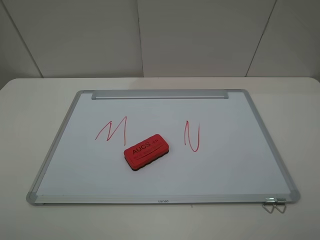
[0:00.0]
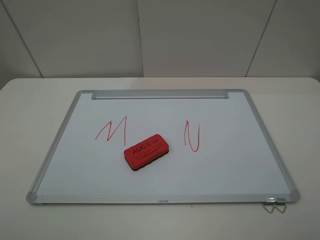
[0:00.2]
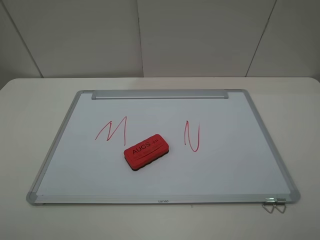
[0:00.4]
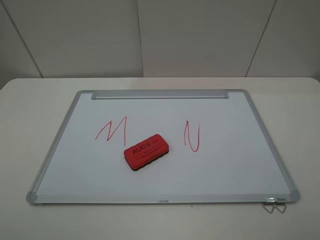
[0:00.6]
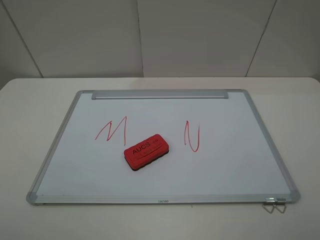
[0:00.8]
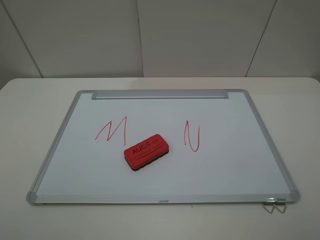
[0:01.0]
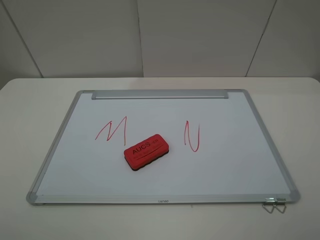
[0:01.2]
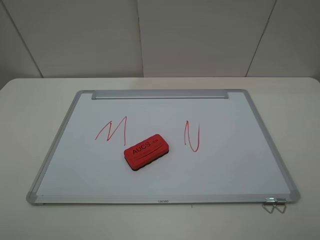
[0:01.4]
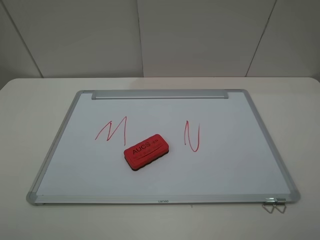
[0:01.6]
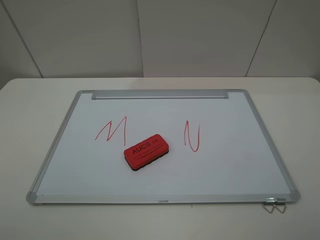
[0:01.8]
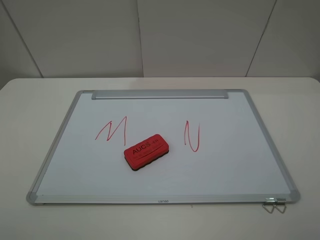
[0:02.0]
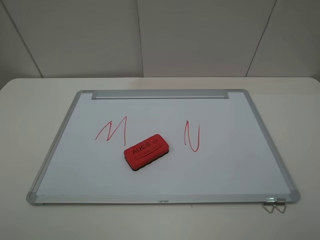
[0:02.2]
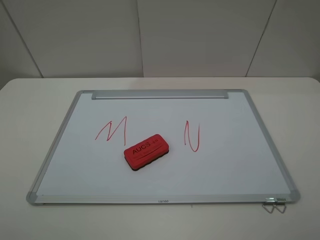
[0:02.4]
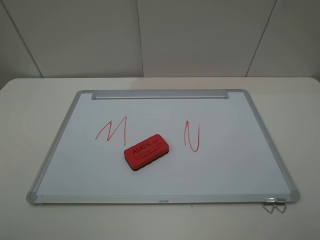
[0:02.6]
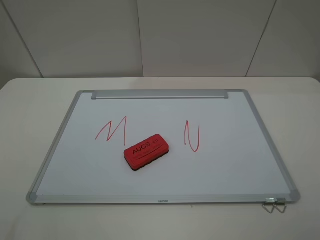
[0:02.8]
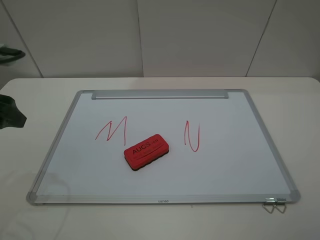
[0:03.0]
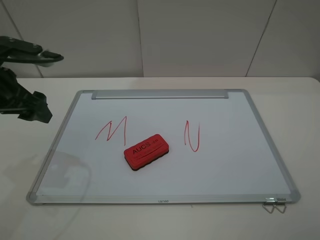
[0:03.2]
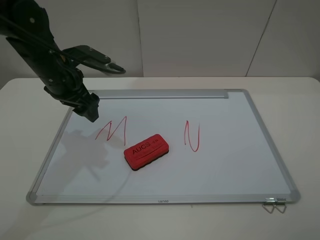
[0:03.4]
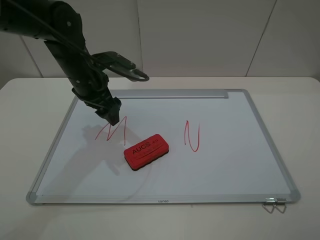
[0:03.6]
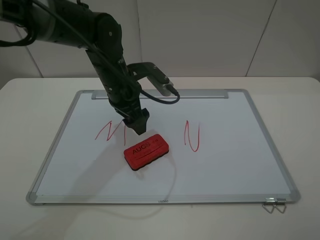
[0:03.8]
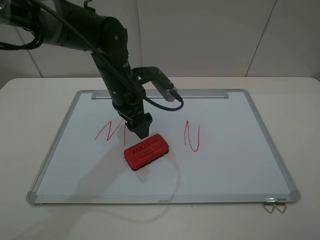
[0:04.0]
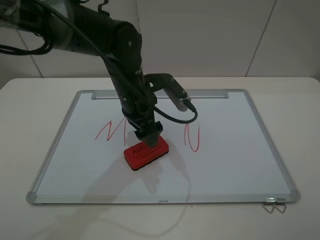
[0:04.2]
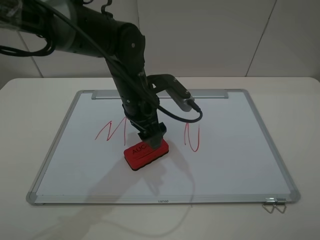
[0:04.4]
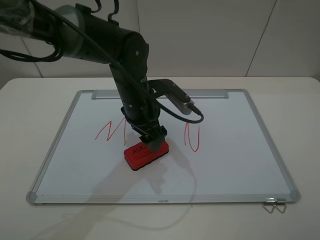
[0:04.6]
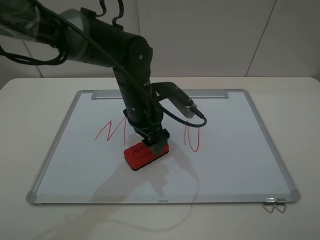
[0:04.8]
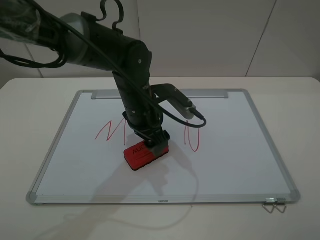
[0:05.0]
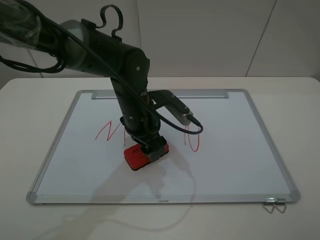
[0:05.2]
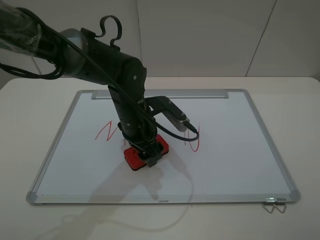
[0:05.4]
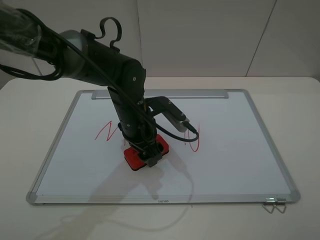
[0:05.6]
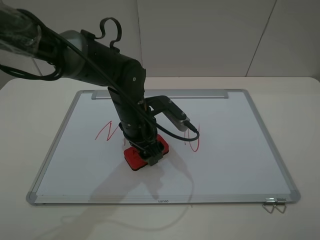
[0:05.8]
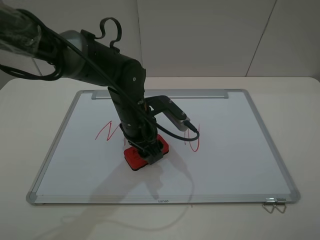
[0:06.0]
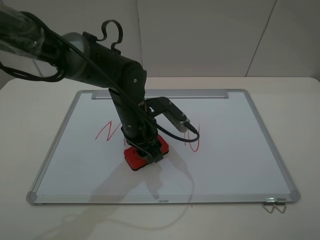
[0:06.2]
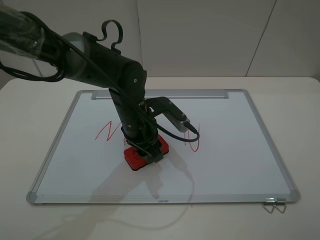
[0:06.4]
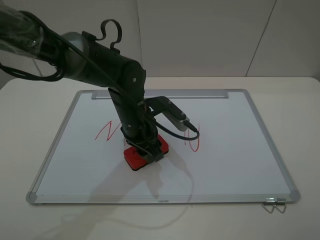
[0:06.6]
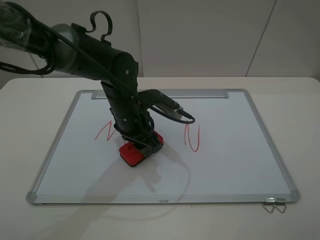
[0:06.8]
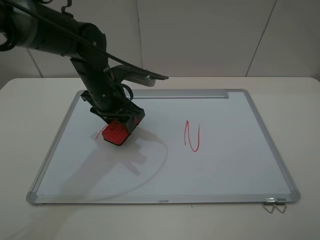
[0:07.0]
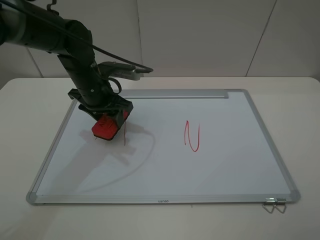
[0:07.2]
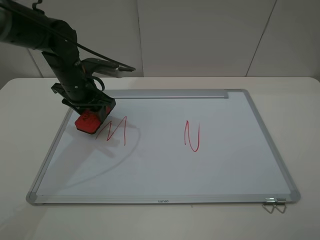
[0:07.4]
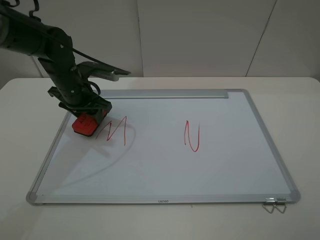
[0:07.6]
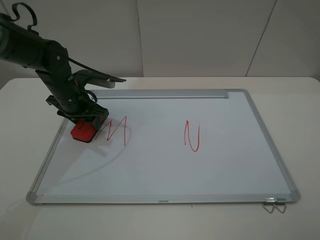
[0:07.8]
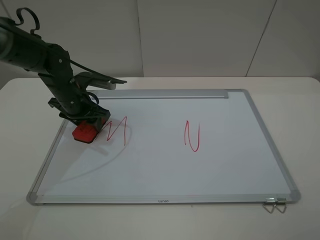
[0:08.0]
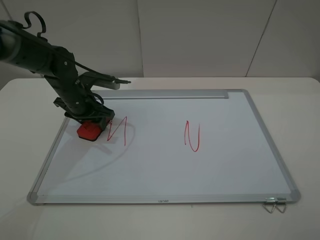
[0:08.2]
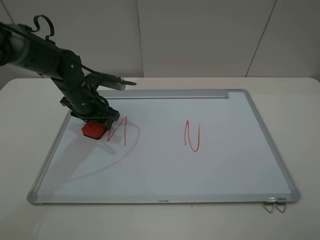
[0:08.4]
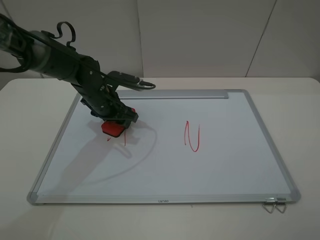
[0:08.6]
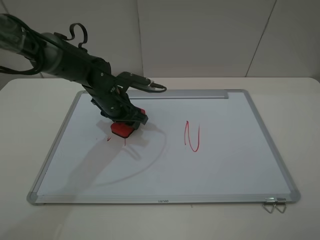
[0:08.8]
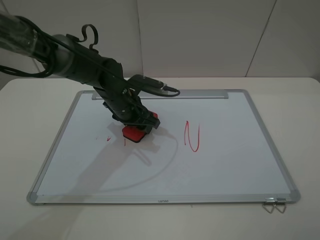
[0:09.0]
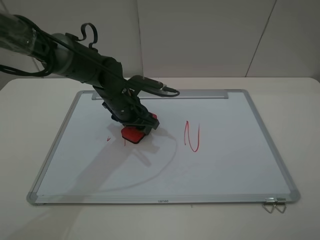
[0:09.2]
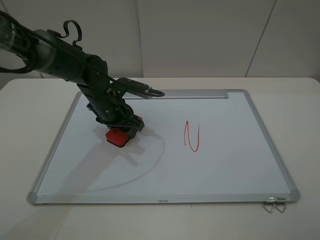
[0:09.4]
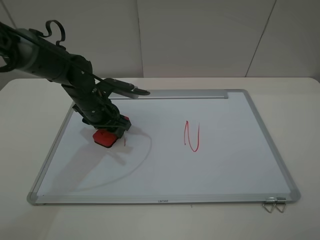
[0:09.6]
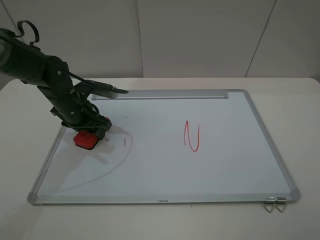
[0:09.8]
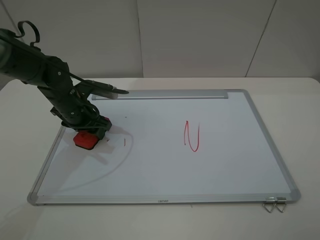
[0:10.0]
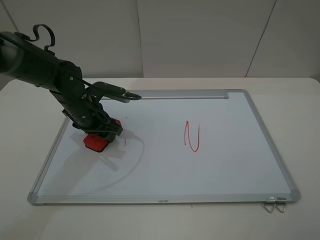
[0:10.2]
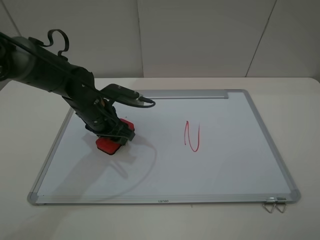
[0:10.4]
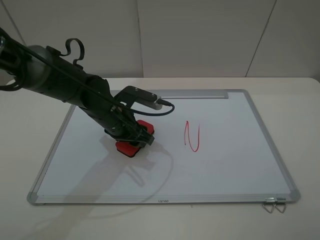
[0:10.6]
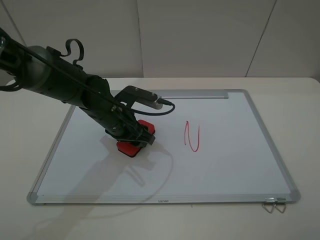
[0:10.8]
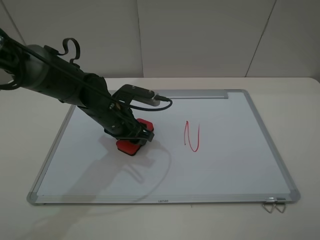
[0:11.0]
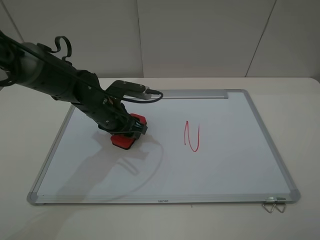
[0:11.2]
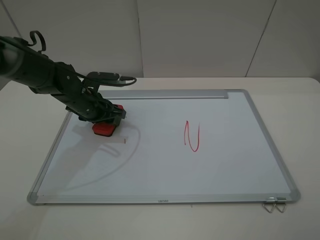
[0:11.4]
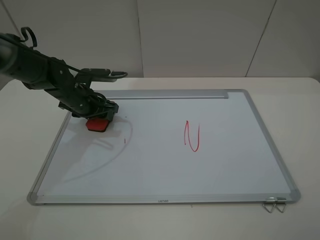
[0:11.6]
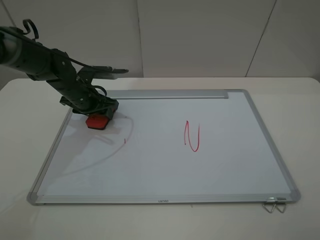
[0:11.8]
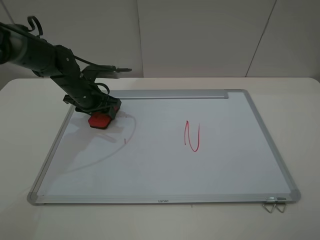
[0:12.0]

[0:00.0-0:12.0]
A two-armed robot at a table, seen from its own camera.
Step, 0:00.0 to 0:06.0: Grasp the eraser with the left gripper.
0:00.0 to 0:01.6: Both grippers stay put.
0:01.6 to 0:03.0: The left gripper is displaced forward by roughly 20 cm.
0:03.0 to 0:04.4: The left gripper travels to the right by some 25 cm.
0:04.4 to 0:06.0: The left gripper closes up.
0:06.0 to 0:07.6: The left gripper goes about 15 cm to the left and forward, and closes up.
0:07.6 to 0:09.0: The left gripper shifts some 10 cm to the right and downward.
0:10.4 to 0:12.0: The left gripper moves forward and to the left, roughly 10 cm.

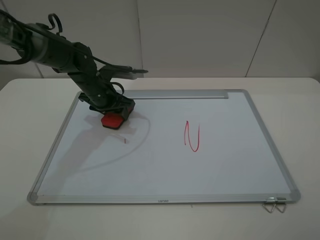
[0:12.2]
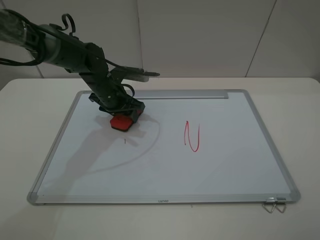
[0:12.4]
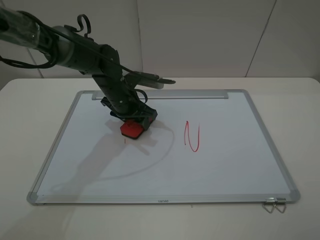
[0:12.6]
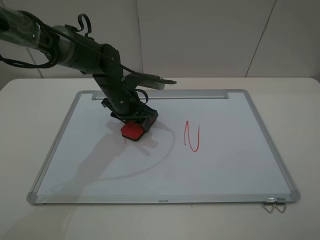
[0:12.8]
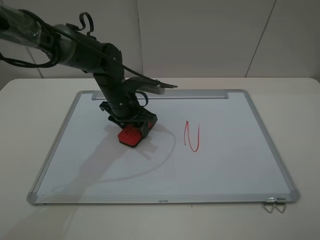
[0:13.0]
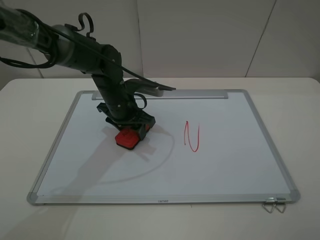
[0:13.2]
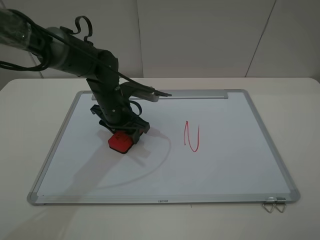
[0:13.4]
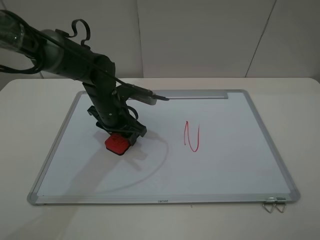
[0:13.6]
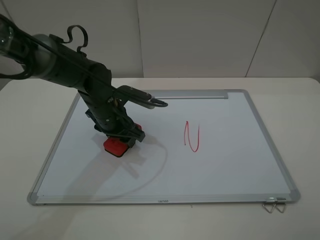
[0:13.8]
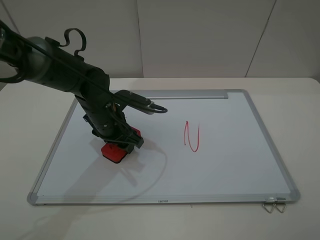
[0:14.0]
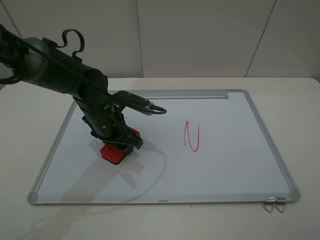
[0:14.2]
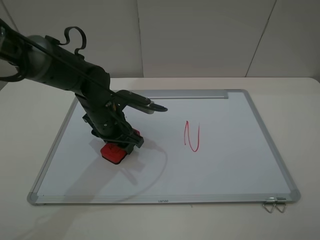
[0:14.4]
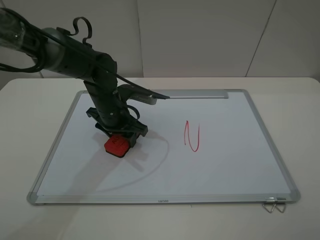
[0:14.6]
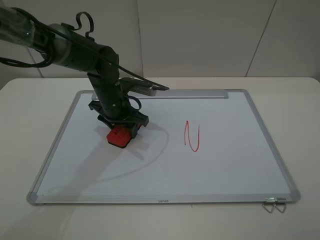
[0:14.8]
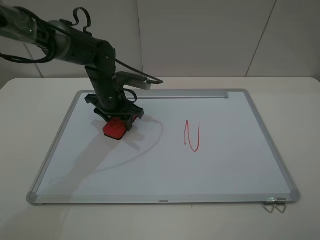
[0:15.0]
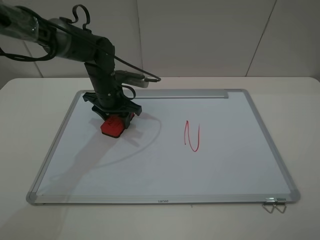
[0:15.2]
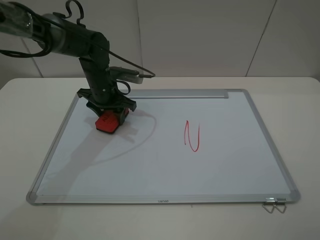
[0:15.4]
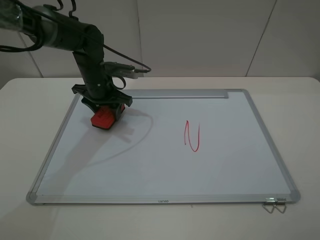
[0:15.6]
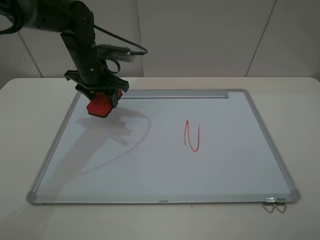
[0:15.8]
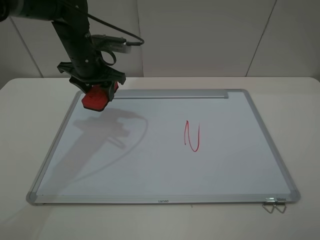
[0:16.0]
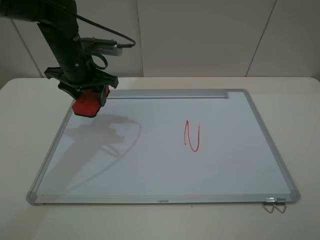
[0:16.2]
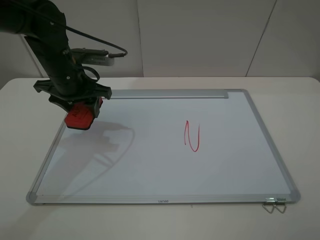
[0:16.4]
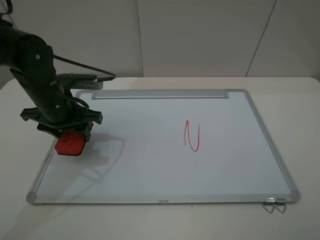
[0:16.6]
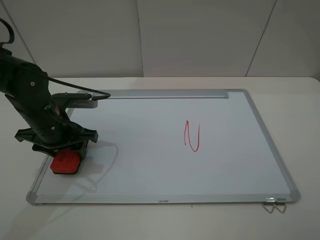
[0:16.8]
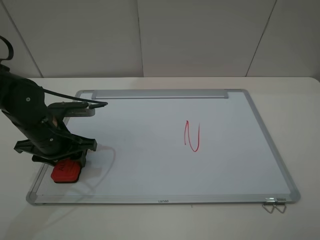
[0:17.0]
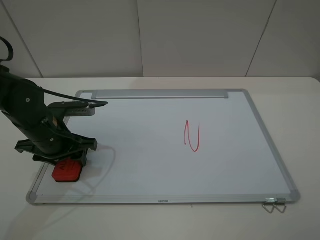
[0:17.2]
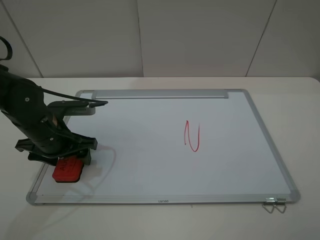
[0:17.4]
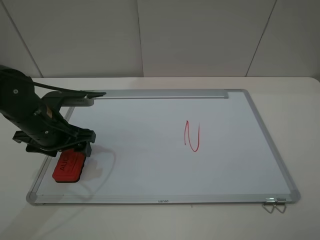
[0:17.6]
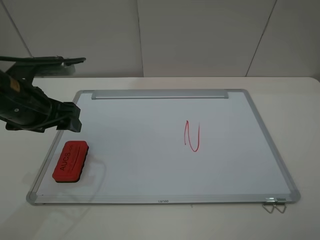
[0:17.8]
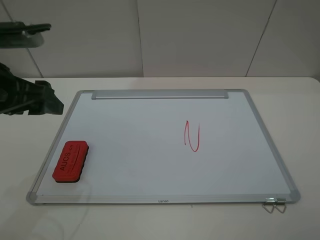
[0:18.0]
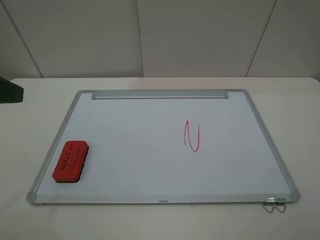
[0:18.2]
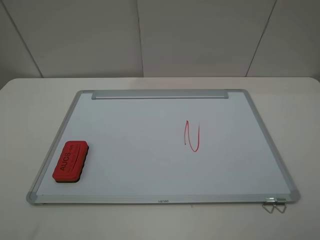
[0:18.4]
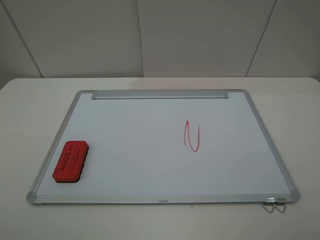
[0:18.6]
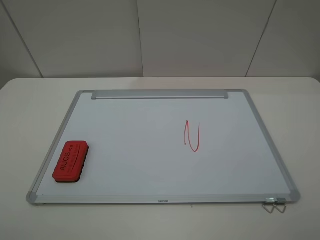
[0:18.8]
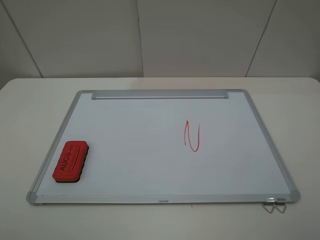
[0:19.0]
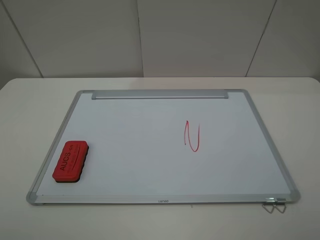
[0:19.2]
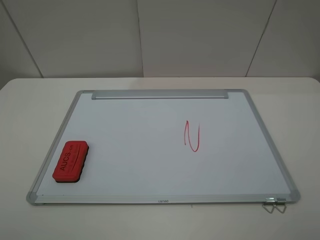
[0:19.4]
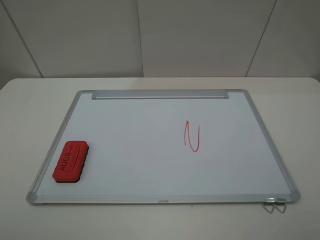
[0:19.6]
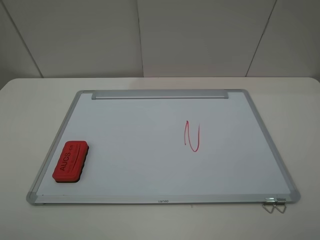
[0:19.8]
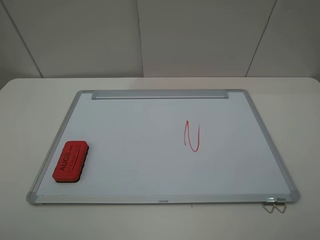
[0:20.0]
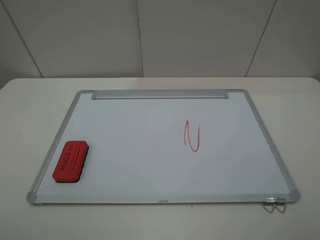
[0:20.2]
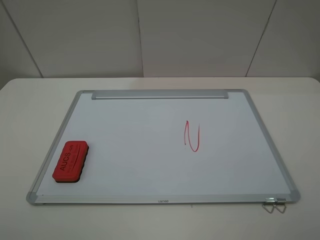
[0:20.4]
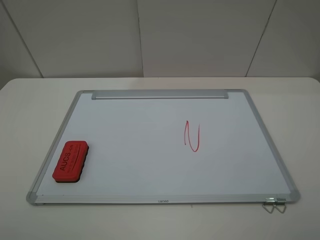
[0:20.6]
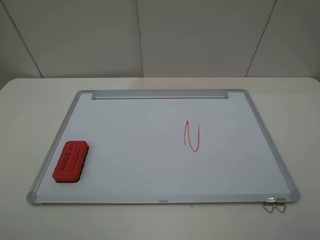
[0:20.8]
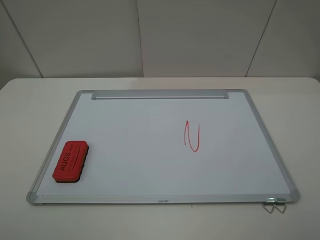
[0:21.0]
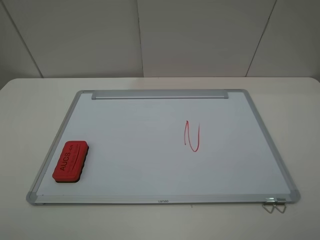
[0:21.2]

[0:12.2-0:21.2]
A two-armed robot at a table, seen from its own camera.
Step, 0:12.2 to 0:15.6: Grasp the eraser and wipe the blackboard with the left gripper.
Step, 0:15.8 to 0:17.6: Place the eraser with the left gripper.
0:12.2 to 0:13.8: The left gripper moves backward, some 10 cm.
0:13.8 to 0:15.2: The left gripper goes some 10 cm forward.
0:15.2 to 0:16.6: The left gripper shifts some 15 cm backward and to the left.
0:16.6 to 0:18.2: The left gripper shifts some 25 cm upward, backward and to the left, and opens.
0:18.2 to 0:19.8: The left gripper travels backward by about 15 cm.

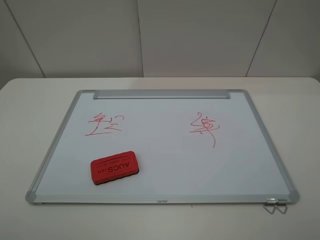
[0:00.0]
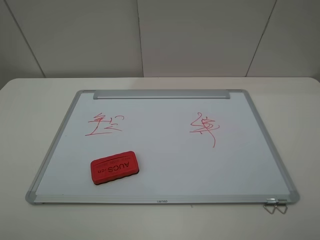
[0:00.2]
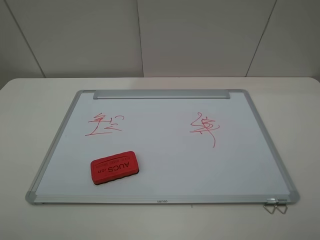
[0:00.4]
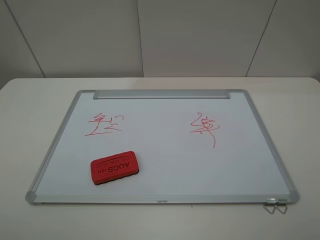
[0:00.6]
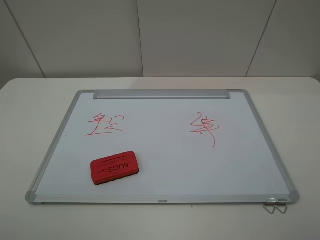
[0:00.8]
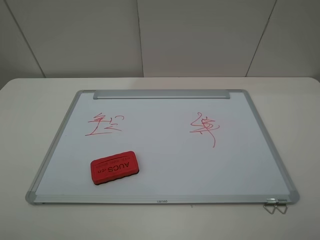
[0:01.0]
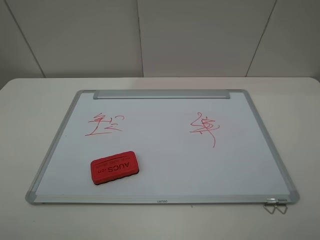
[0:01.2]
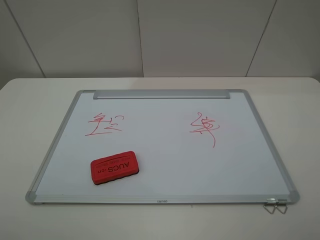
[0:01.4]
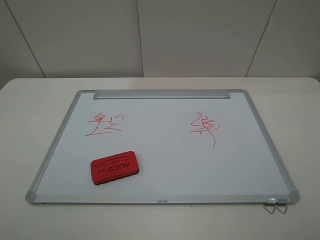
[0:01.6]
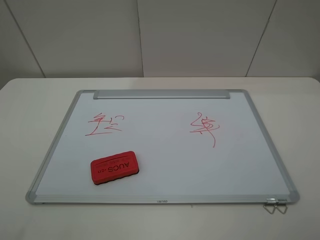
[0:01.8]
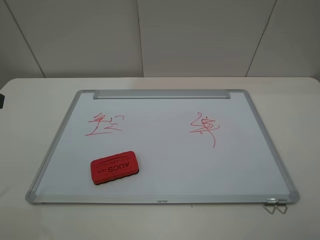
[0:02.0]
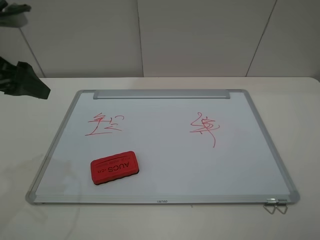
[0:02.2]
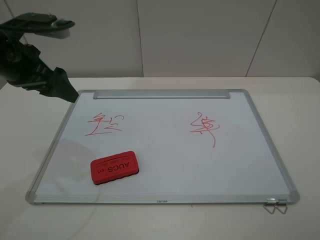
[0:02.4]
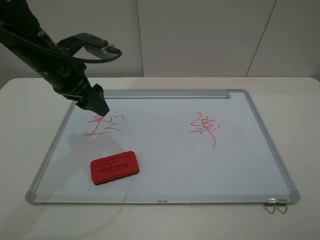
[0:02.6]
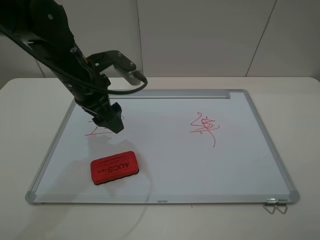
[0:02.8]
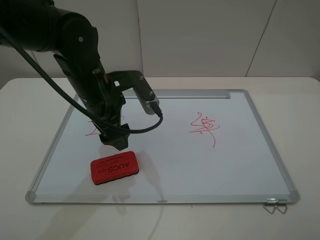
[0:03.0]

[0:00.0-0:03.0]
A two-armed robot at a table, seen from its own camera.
0:01.6 to 0:03.0: The left gripper is displaced forward and to the right by some 35 cm.
